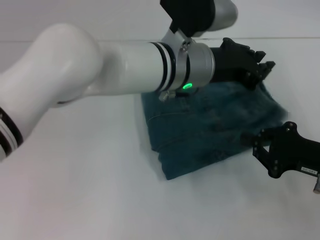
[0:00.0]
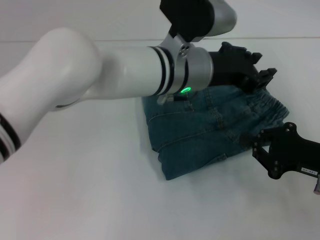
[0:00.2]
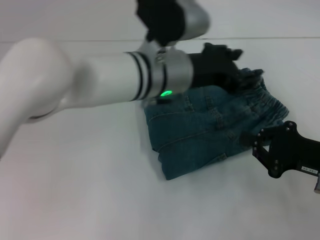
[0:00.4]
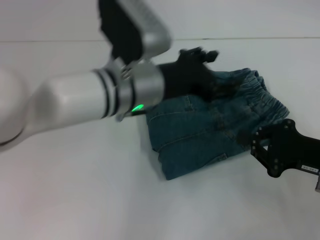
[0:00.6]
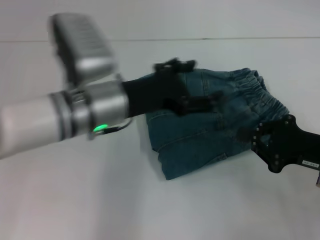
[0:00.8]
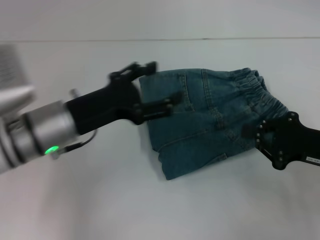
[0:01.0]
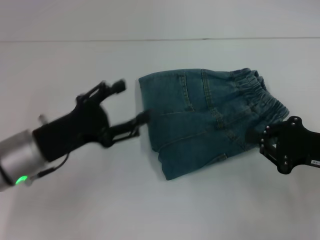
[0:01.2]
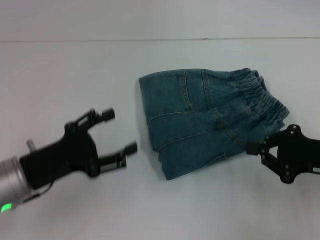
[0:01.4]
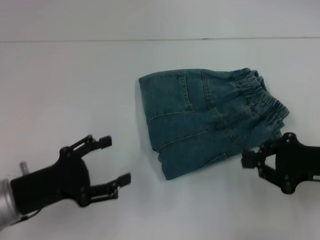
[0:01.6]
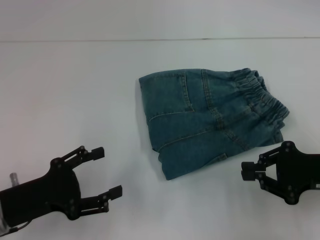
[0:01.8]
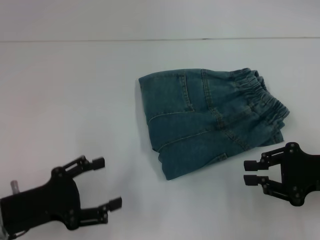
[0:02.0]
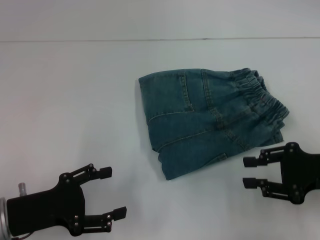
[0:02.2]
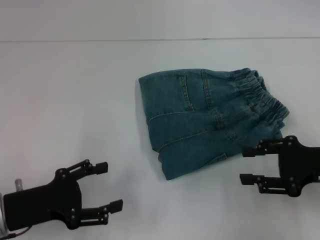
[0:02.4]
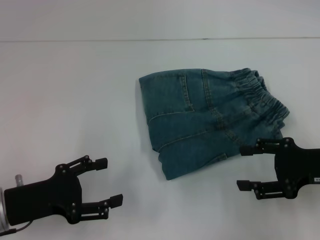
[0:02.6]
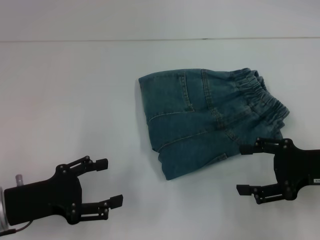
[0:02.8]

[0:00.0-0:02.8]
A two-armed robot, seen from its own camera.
0:00.0 to 0:01.4: The left gripper heads to the left, backward and downward, covering some 30 cm, and opens.
0:01.4 to 0:02.8: The right gripper opens up.
